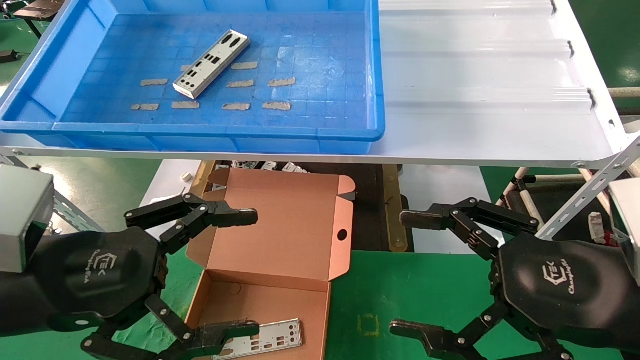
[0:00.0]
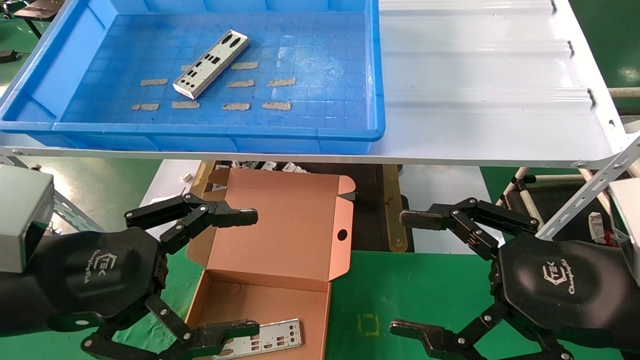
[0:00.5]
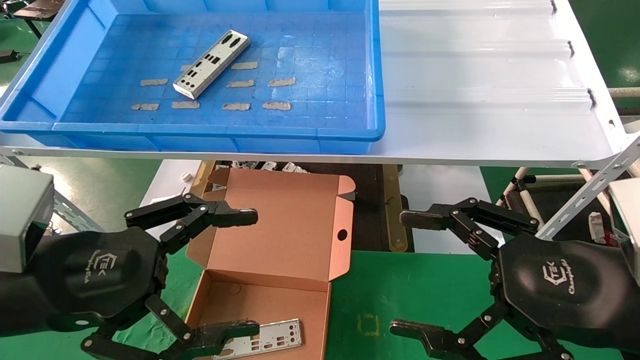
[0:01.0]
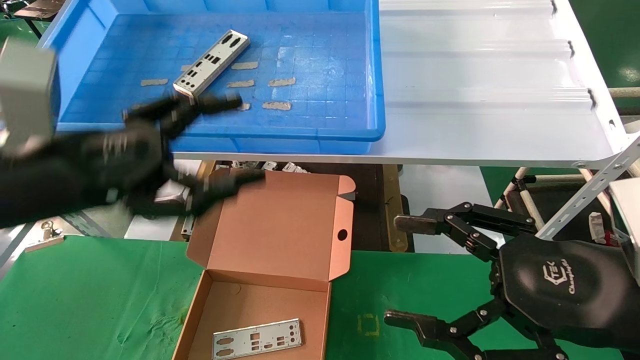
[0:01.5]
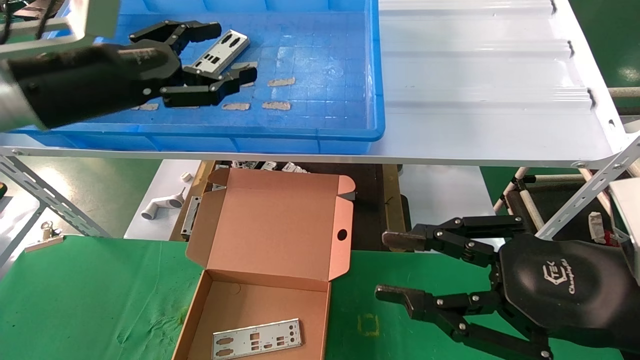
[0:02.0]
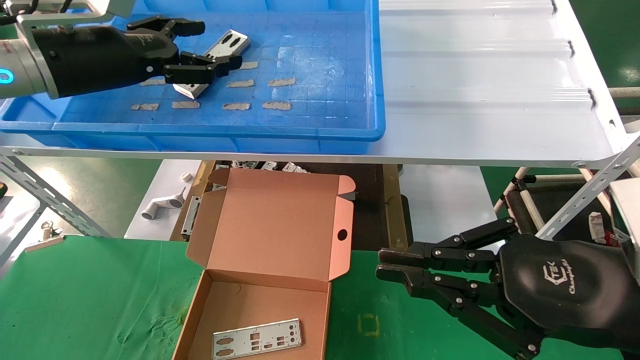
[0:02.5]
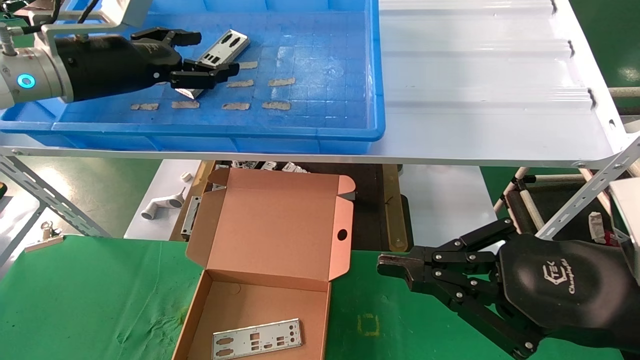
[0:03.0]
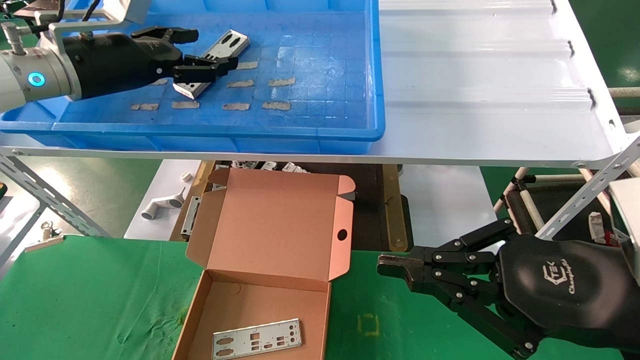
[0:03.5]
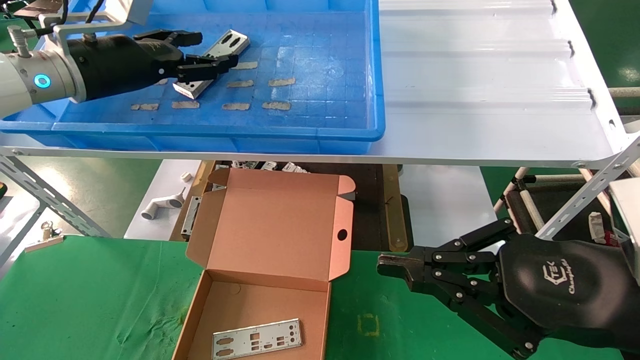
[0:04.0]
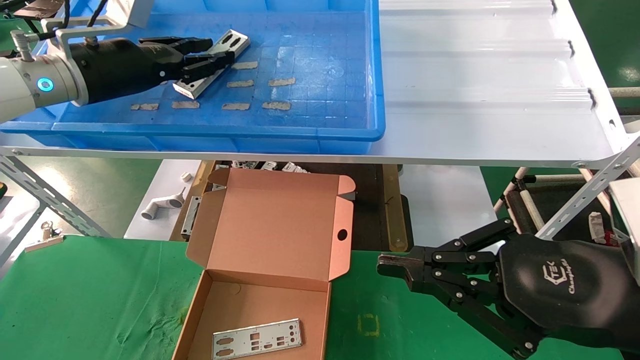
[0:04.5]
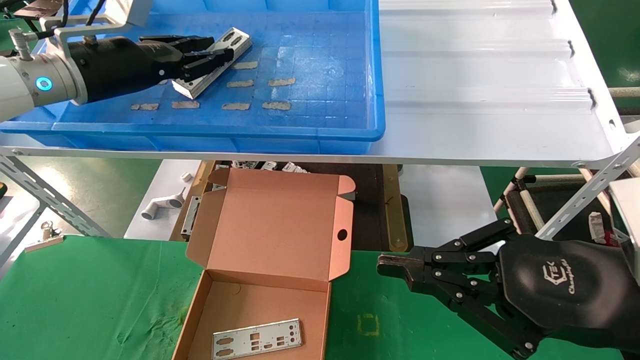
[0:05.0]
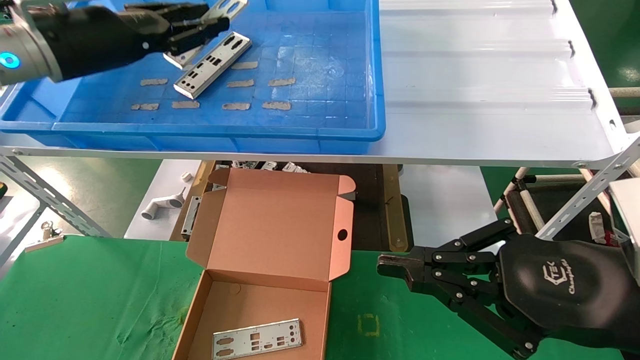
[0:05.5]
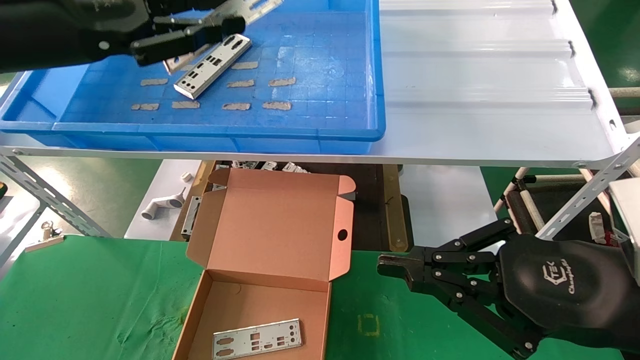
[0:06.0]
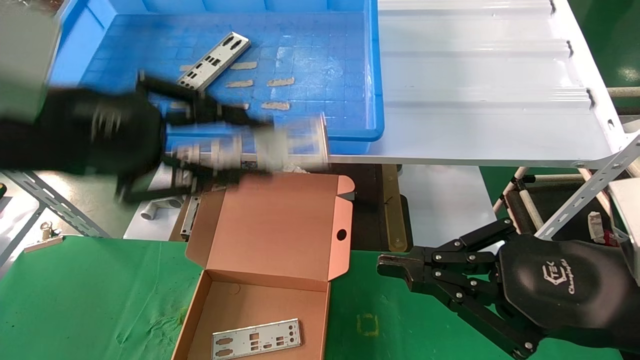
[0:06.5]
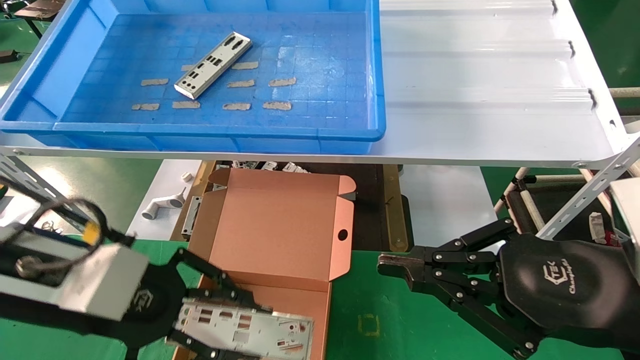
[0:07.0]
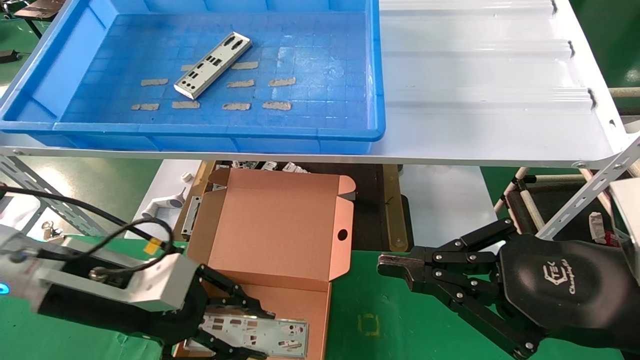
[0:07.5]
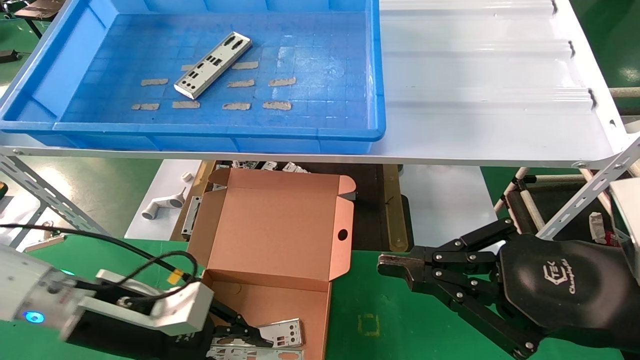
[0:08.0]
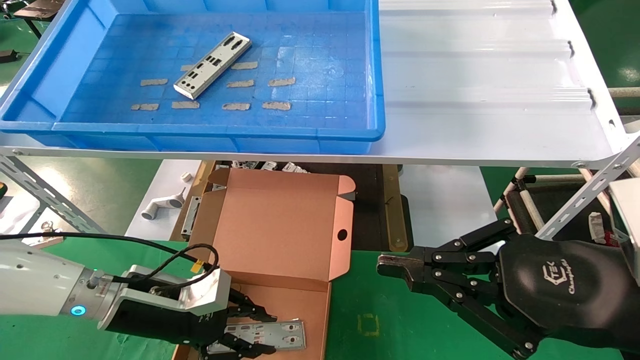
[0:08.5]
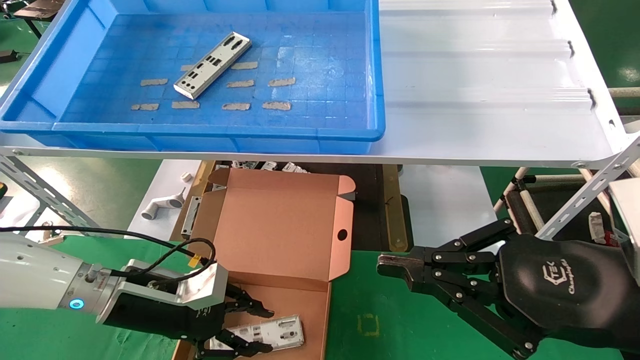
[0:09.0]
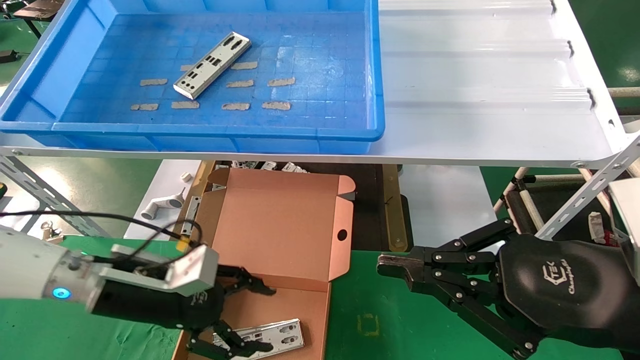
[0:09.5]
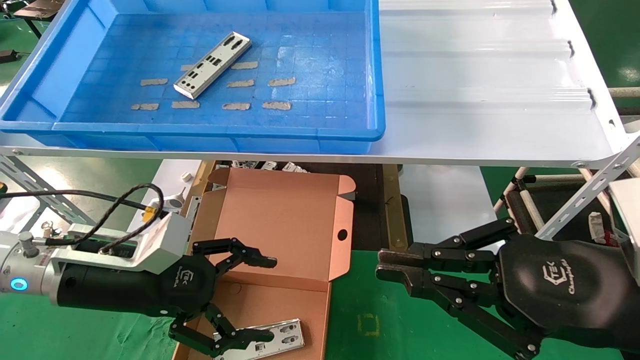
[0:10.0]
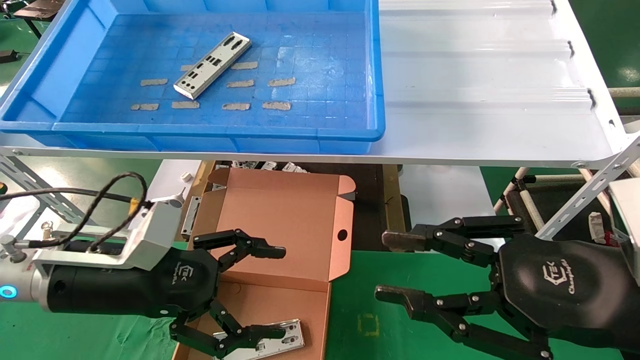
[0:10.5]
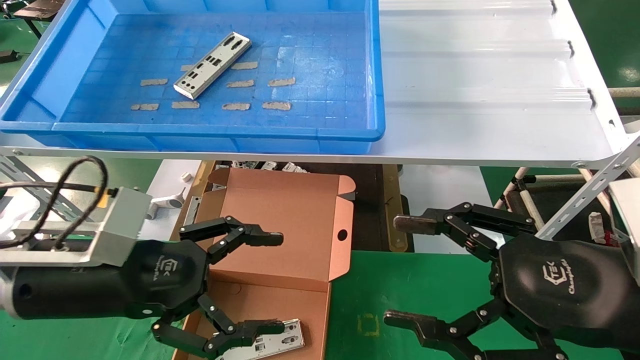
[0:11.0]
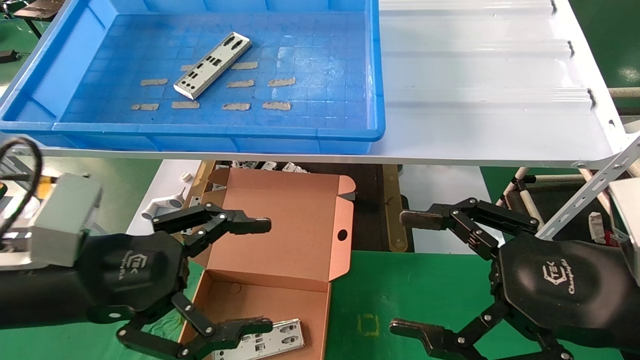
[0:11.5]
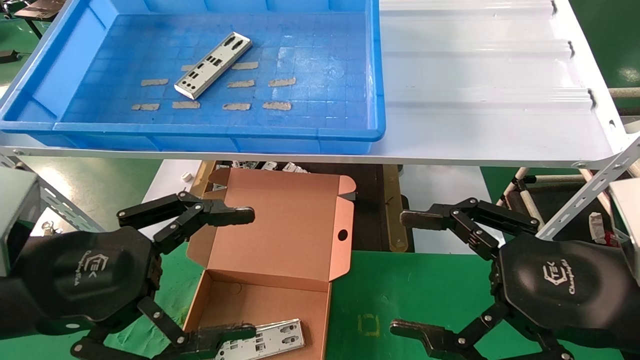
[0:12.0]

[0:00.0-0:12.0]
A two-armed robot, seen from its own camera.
Task of the whole recording: pick up the parts on the tray and put them in the cardboard box.
Step, 0:01.5 to 0:04.5: Pick up the IO bracket from the container box.
Step, 0:05.0 to 0:09.0: Place the IO bracket into the ingredient slot.
0:00.0 to 0:02.0: The right gripper closes its fingers. Meanwhile the left gripper shifts some 20 cm forward and upward.
0:02.0 to 0:04.0: The right gripper closes. Meanwhile the left gripper travels forward by roughly 10 cm.
0:04.0 to 0:06.0: The left gripper is displaced backward by approximately 10 cm, and closes.
0:06.0 to 0:08.0: The left gripper shifts roughly 30 cm downward.
0:08.0 to 0:10.0: The left gripper opens.
0:10.0 to 0:12.0: The left gripper moves backward and upward, some 15 cm. Meanwhile the right gripper opens.

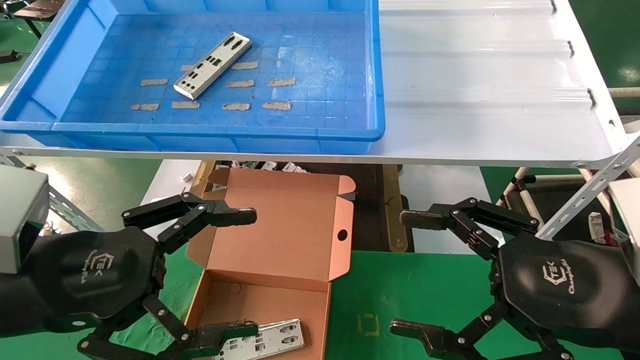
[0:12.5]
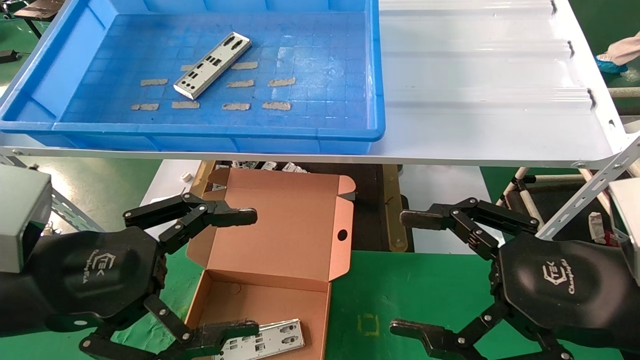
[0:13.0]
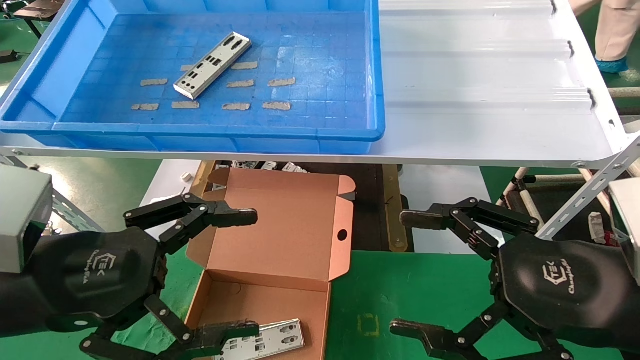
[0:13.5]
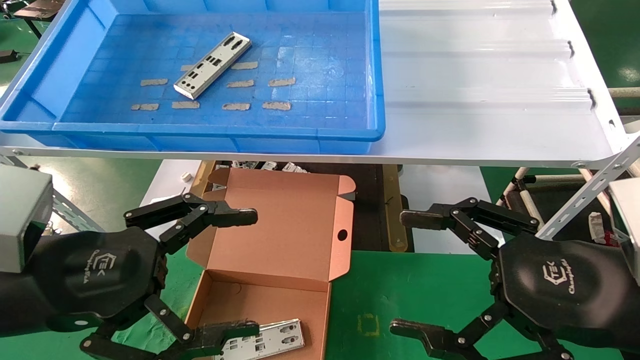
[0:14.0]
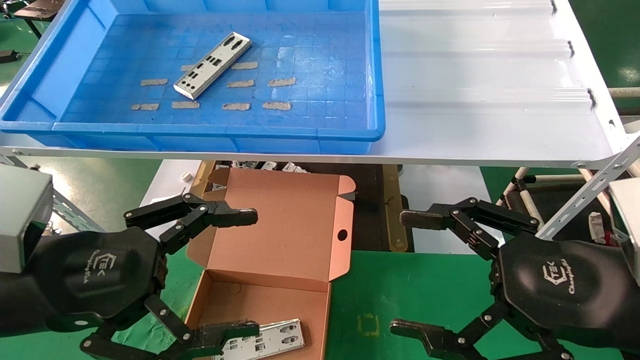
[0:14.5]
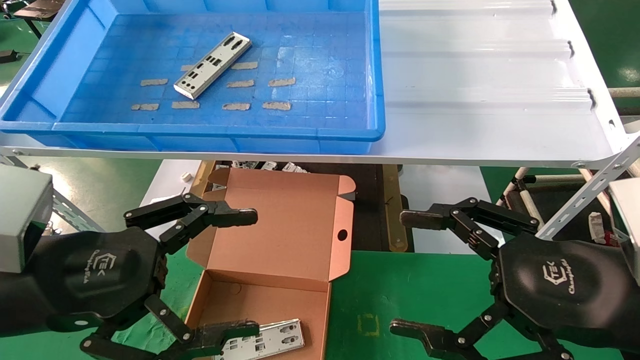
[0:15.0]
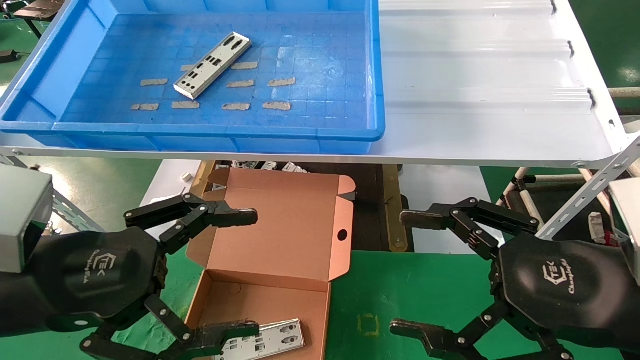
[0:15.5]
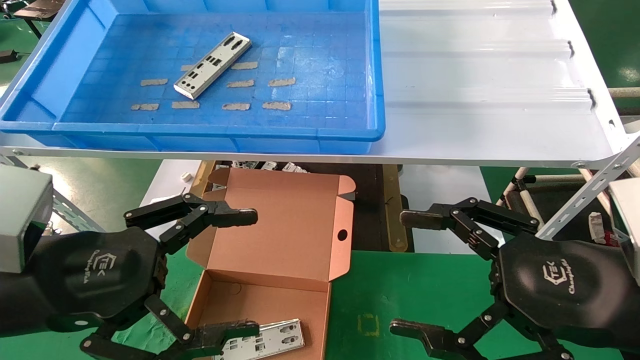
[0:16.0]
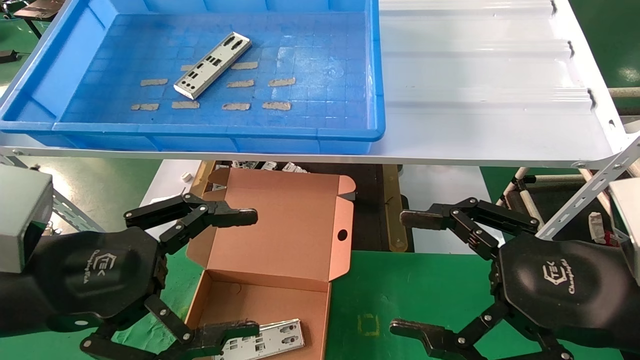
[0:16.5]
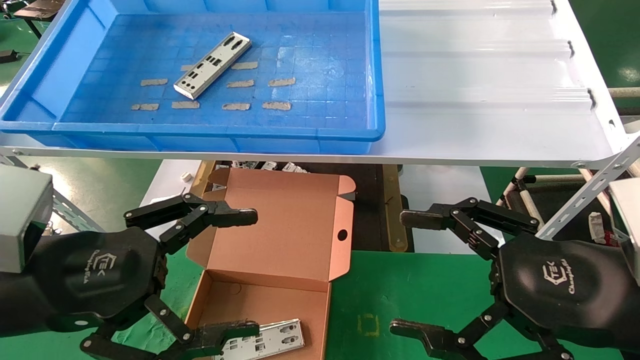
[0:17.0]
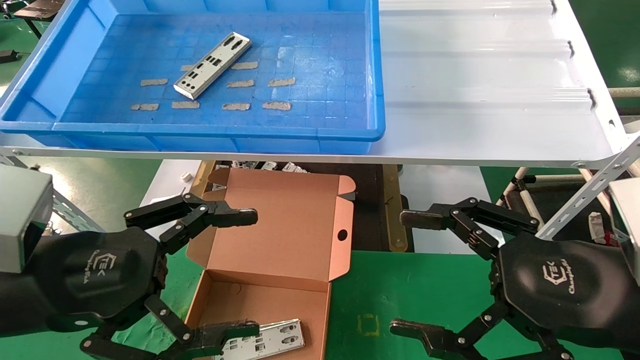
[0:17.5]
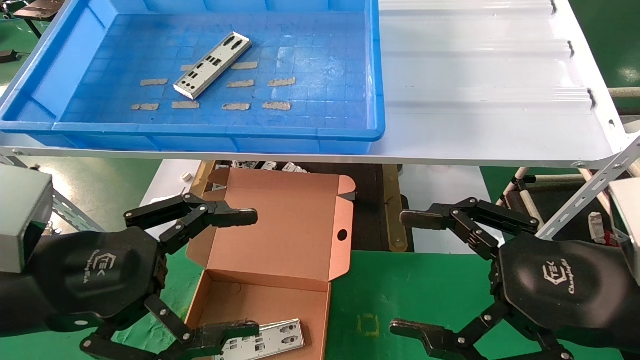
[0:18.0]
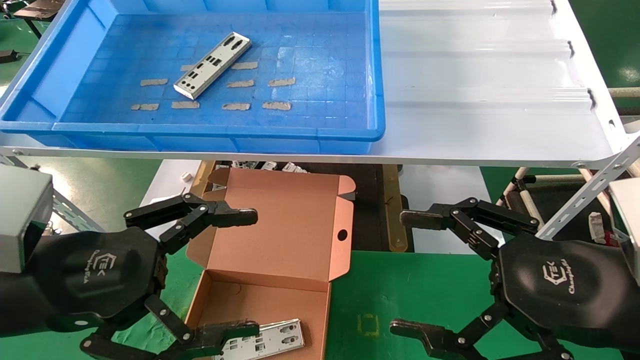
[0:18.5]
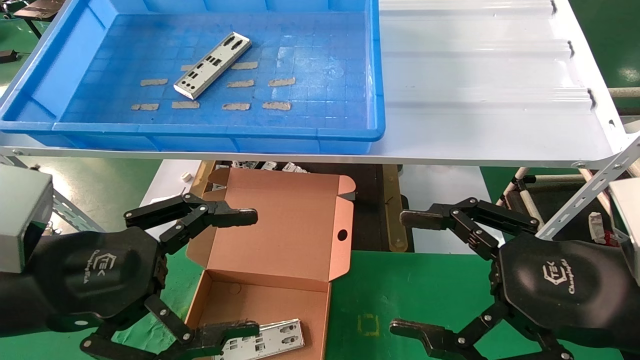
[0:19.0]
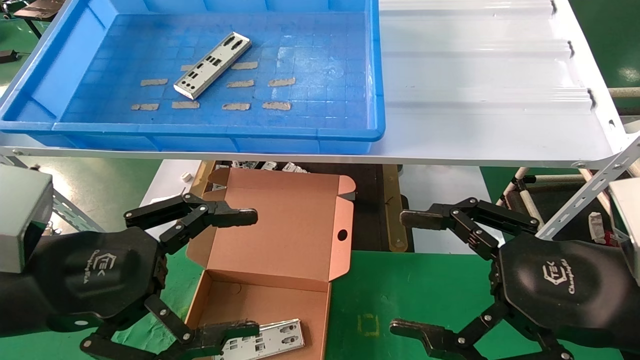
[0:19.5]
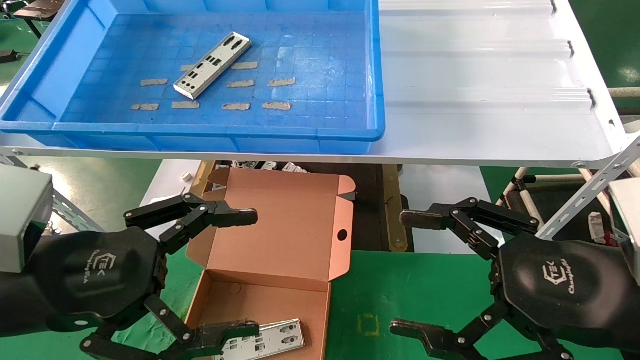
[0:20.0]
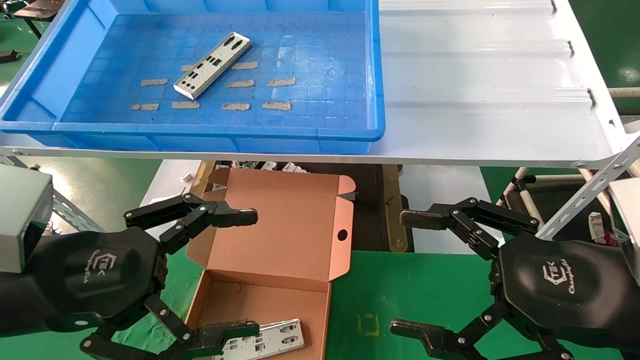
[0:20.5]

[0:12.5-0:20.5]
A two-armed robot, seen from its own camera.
Task of the whole recording: pick up the parts on the tray and put them in the cardboard box.
0:12.5 to 0:20.5: Both grippers stay about where they are.
